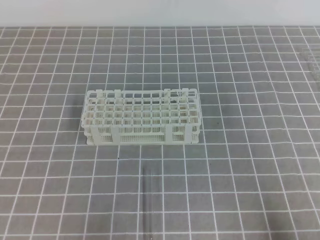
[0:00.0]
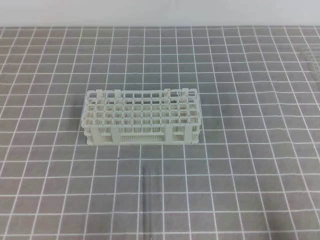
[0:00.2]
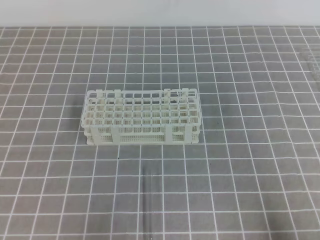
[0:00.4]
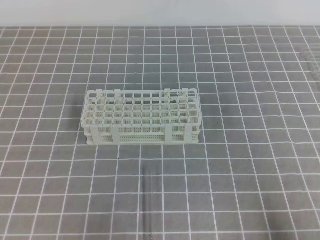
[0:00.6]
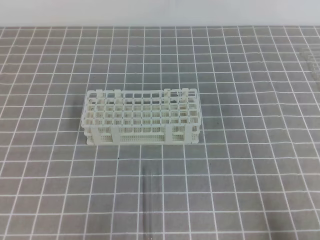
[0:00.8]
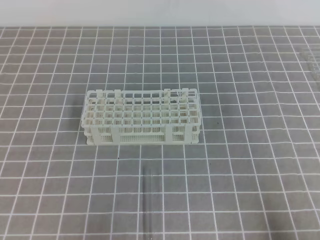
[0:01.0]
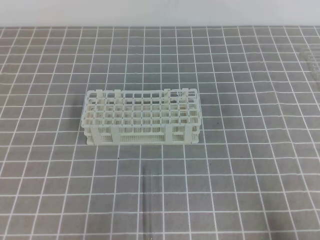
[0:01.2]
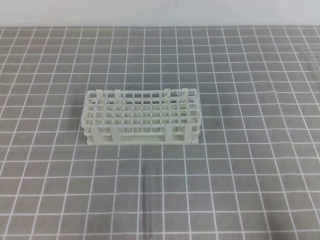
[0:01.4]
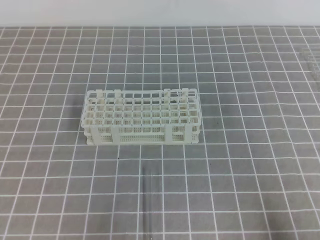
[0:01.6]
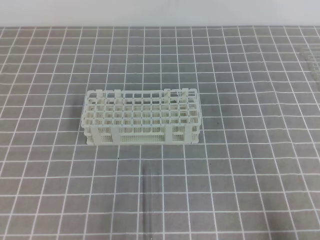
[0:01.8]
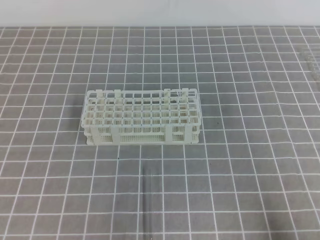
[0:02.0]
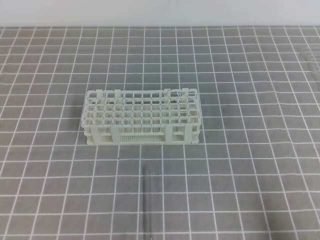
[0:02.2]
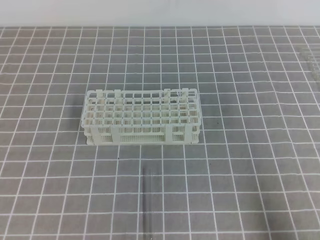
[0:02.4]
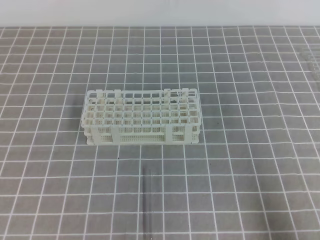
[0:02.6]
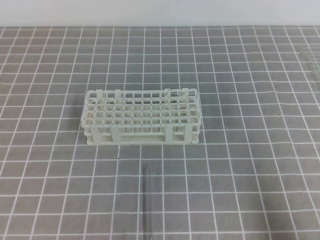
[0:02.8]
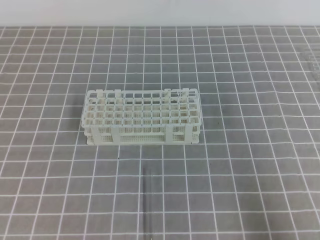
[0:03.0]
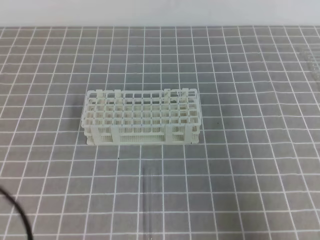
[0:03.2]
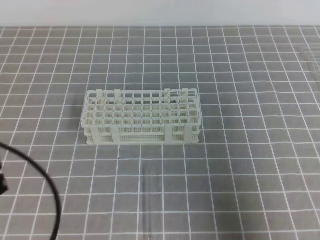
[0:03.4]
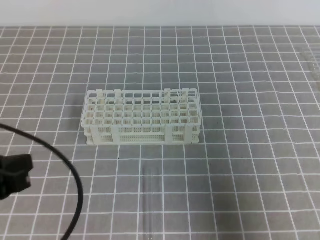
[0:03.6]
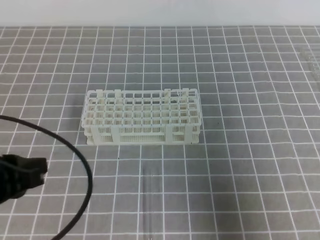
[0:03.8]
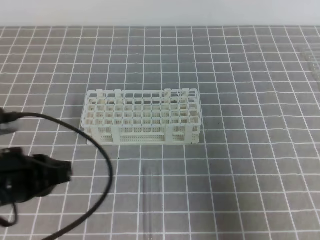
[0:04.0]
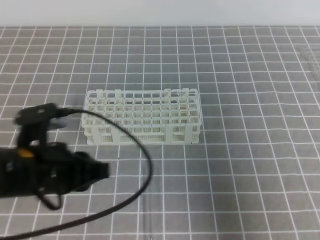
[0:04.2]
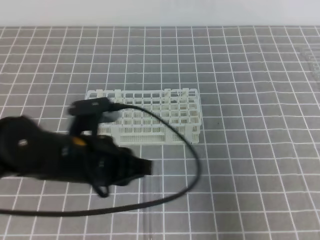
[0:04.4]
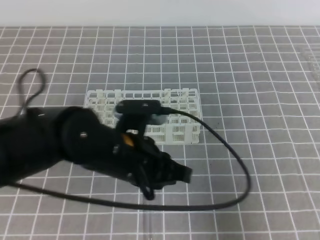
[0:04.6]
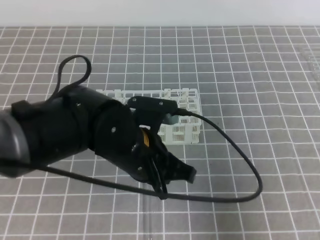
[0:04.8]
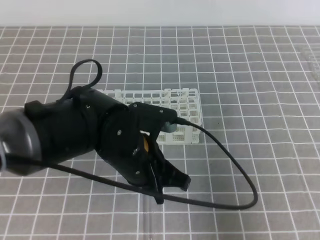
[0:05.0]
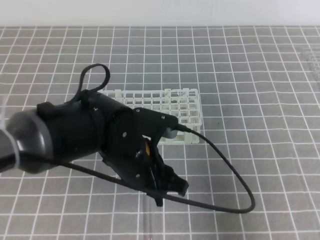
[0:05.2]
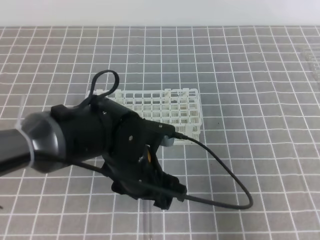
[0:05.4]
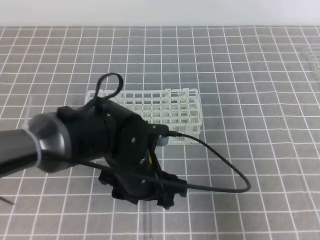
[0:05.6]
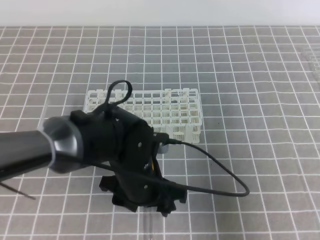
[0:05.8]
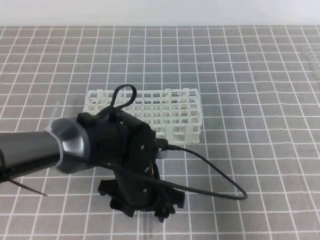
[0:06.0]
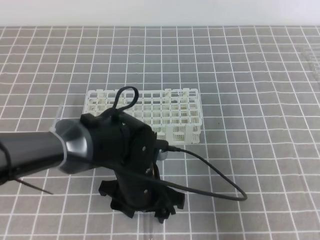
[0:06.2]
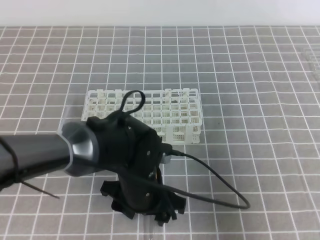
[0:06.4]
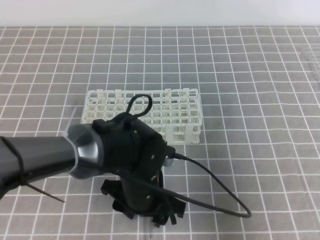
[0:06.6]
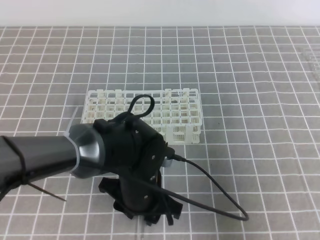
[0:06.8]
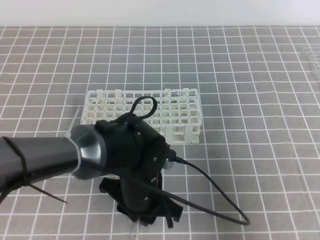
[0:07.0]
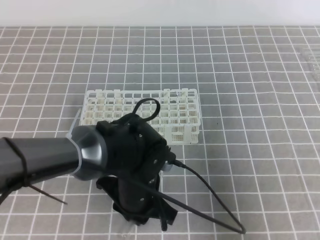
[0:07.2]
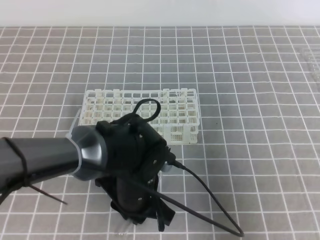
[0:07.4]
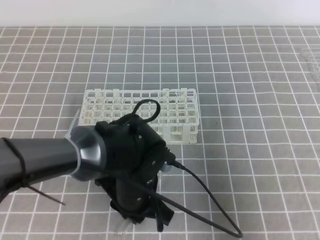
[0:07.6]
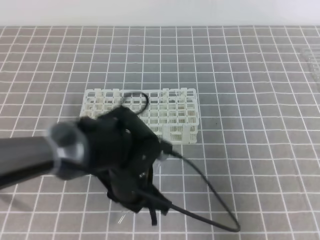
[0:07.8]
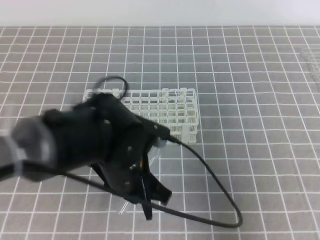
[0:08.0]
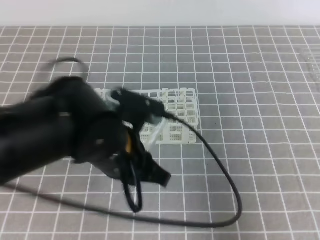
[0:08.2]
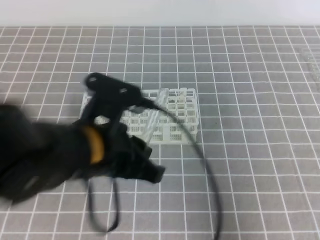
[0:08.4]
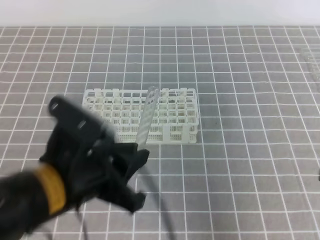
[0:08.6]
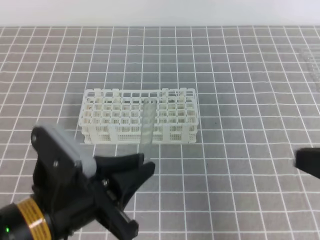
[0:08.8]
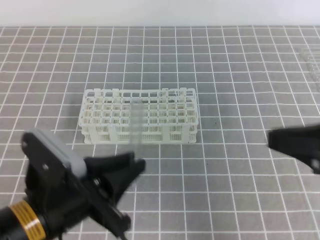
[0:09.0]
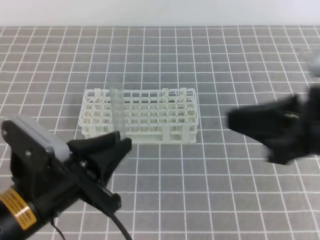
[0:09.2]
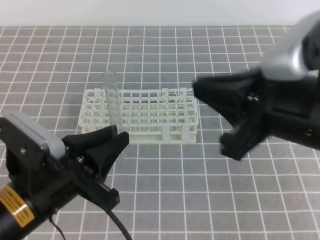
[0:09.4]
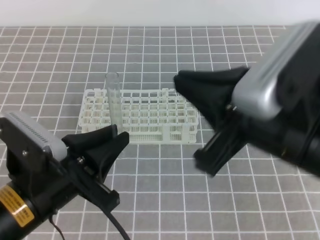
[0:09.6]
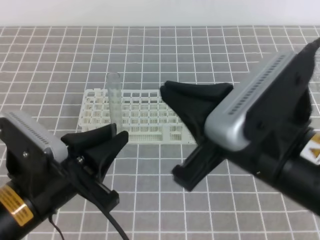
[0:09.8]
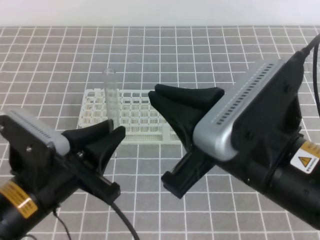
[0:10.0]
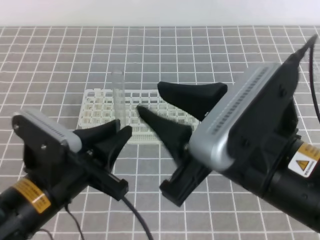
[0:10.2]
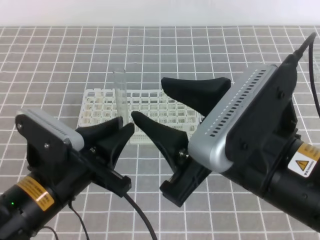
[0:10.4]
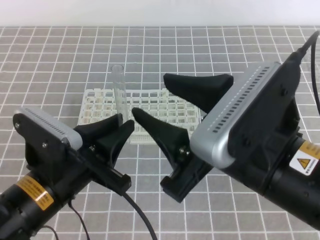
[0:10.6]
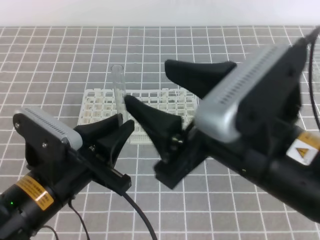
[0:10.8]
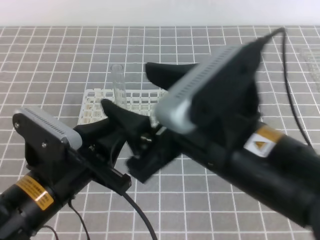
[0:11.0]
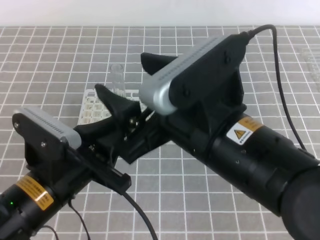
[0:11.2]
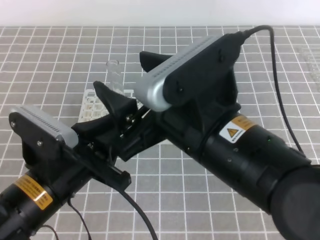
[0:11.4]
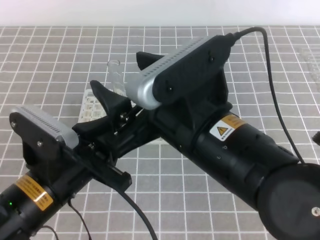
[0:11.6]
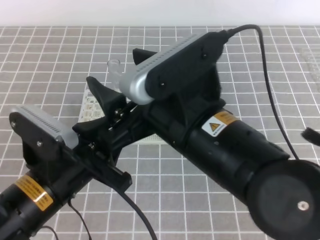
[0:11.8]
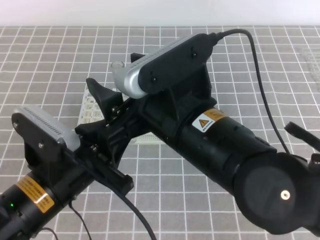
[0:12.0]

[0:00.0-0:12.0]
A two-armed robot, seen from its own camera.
0:00.0 to 0:01.6: The two grippers keep their place.
0:03.0 to 0:04.4: The right gripper heads upward and forward, covering about 10 cm; the left gripper heads to the right and forward, covering some 20 cm.
0:04.4 to 0:06.0: The left gripper moves to the right and downward, roughly 10 cm, and opens its fingers.
0:06.0 to 0:07.6: The left gripper closes up.
0:07.6 to 0:09.0: The right gripper is displaced to the left and upward by about 10 cm; the left gripper goes approximately 15 cm to the left, upward and backward.
0:09.0 to 0:10.4: The right gripper shifts approximately 15 cm to the left, and opens up.
0:10.4 to 0:12.0: The right gripper goes approximately 5 cm to the left.

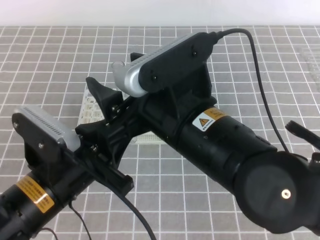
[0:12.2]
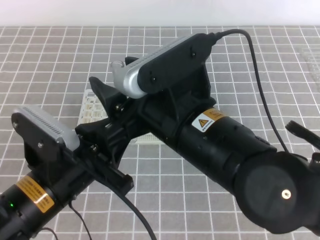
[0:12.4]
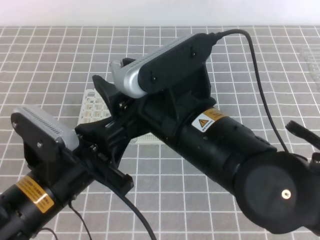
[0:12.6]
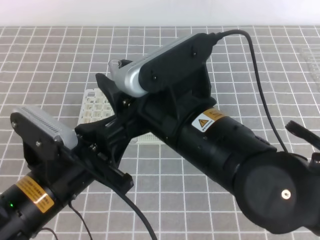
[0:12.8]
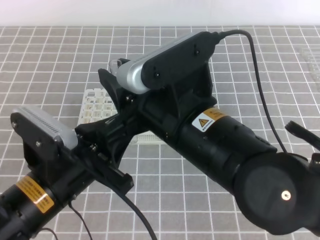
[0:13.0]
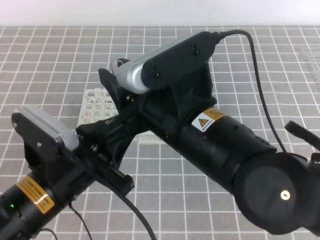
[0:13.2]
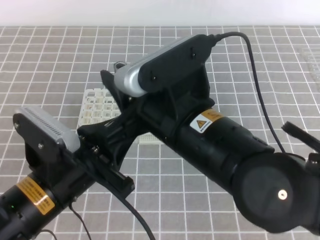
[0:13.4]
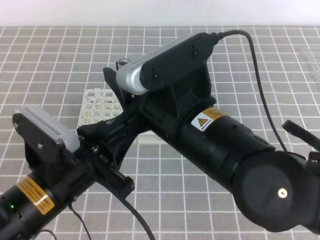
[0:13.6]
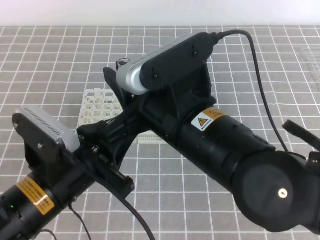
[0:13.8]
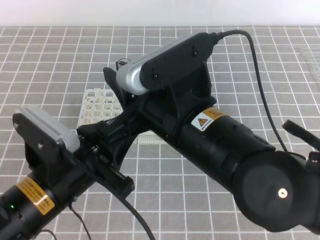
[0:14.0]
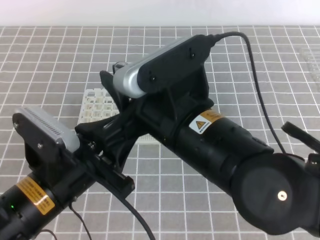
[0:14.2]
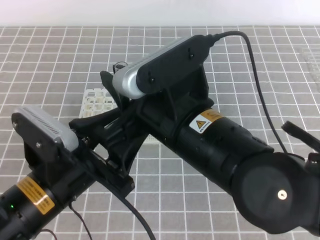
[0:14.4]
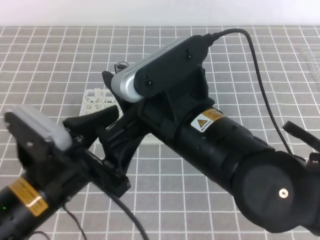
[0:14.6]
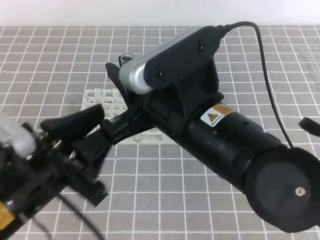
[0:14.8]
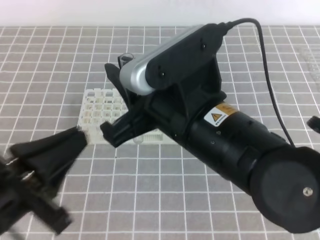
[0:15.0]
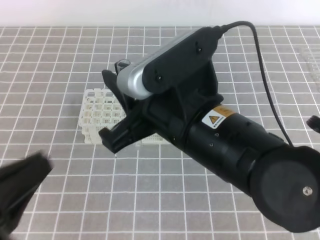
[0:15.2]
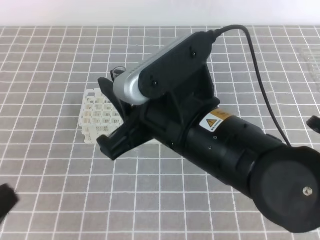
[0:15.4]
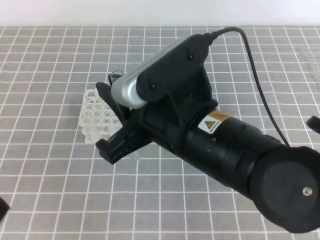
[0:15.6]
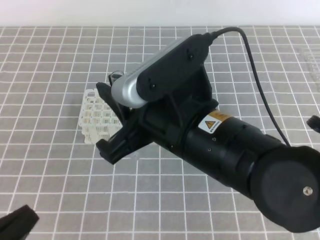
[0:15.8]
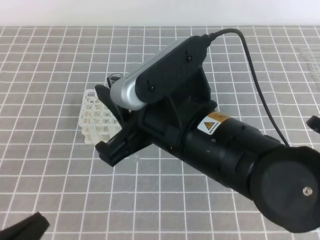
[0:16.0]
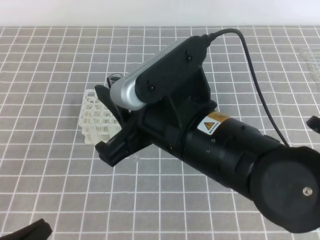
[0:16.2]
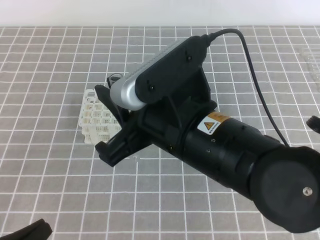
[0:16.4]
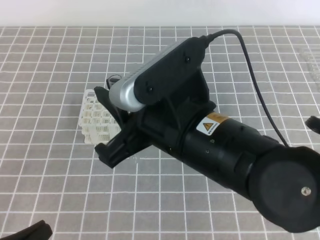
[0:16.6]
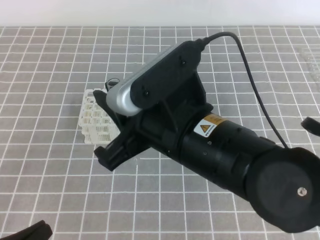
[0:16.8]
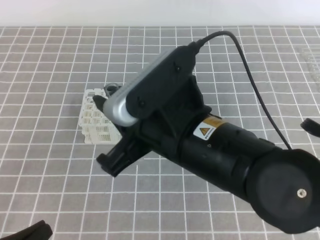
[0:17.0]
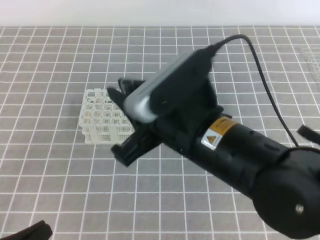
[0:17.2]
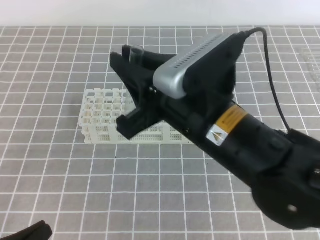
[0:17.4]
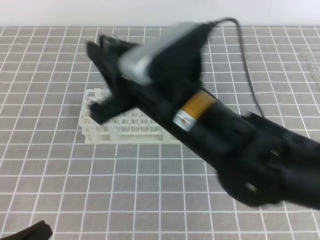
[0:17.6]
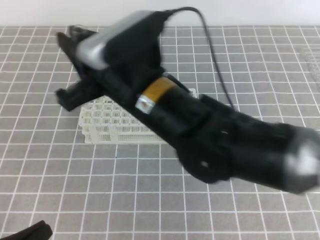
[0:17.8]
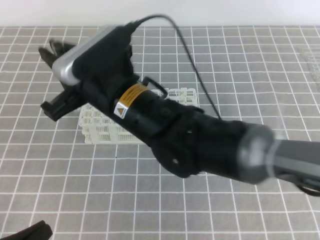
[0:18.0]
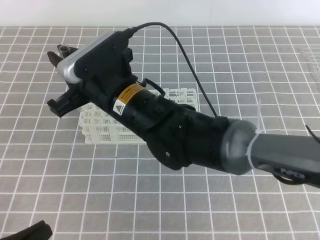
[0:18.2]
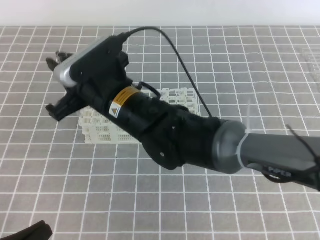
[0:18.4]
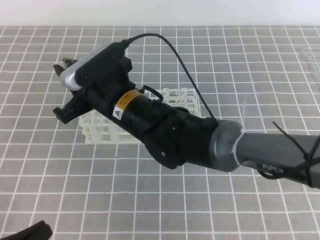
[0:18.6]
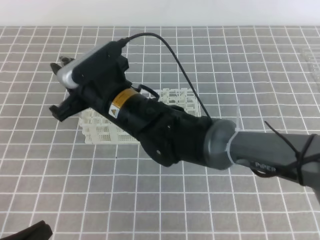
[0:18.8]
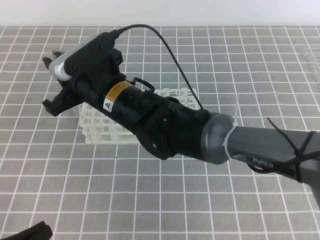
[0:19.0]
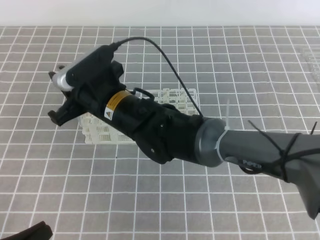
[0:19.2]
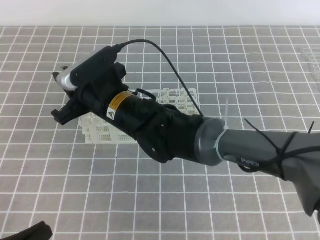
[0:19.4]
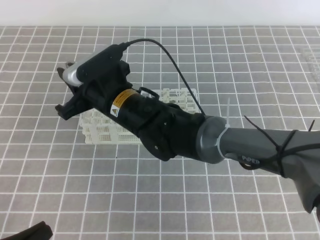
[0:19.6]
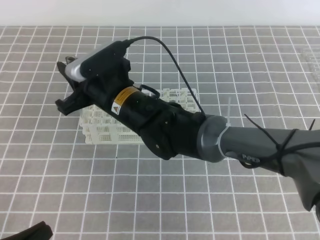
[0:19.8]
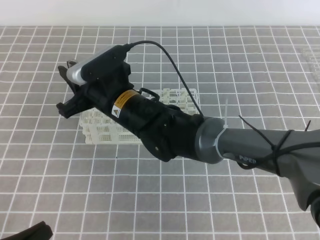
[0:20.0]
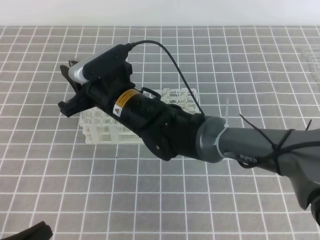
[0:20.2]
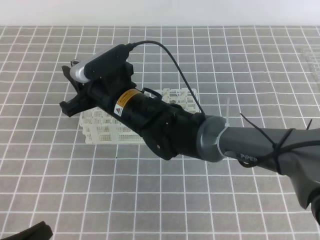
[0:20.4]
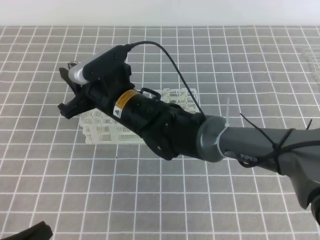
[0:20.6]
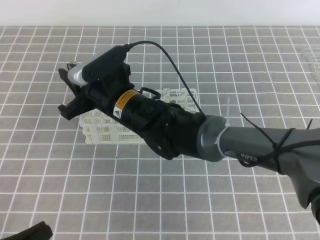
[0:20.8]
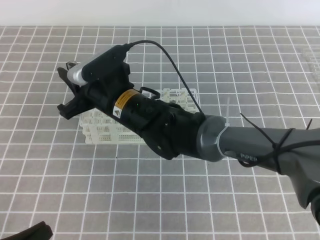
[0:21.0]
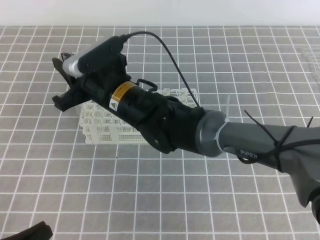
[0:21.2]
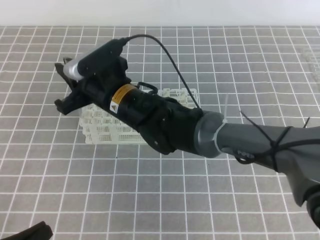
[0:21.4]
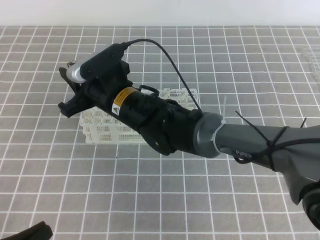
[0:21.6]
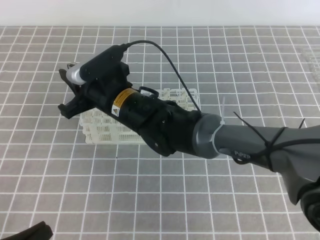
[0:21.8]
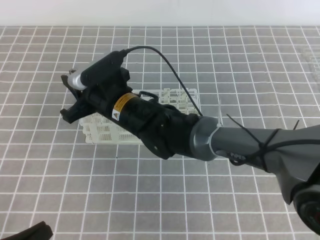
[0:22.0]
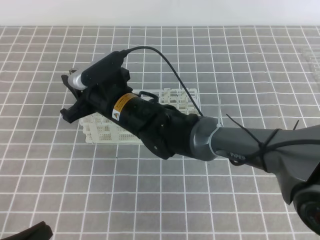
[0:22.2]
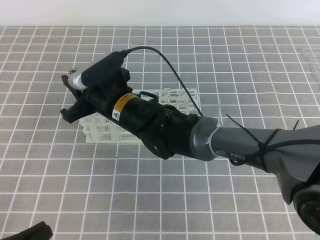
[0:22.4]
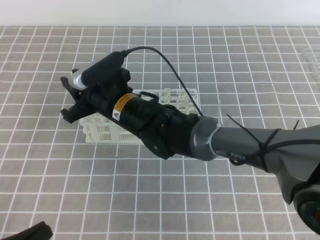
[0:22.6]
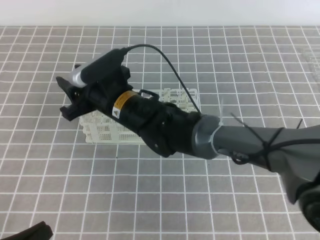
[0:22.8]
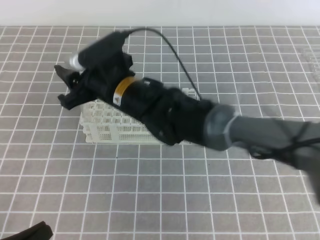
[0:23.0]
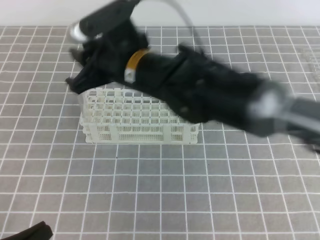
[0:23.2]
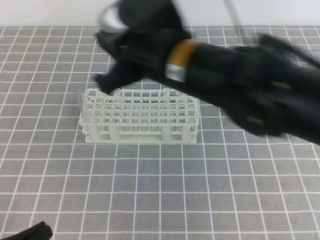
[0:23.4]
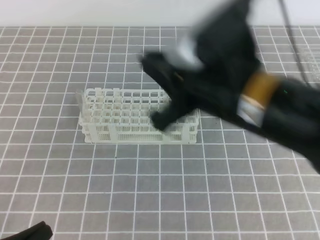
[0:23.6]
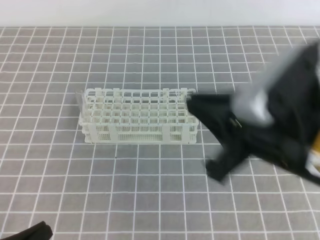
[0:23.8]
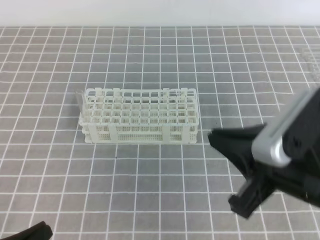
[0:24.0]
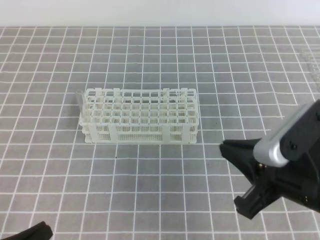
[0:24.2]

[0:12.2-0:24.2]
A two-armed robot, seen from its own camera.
0:12.2 to 0:13.8: The right gripper closes its fingers.
0:13.8 to 0:15.2: The left gripper moves backward and to the left, some 10 cm, and opens, then closes once more.
0:15.2 to 0:16.6: The left gripper heads downward, covering about 10 cm.
0:16.6 to 0:18.2: The right gripper heads forward and to the left, covering roughly 15 cm.
0:18.2 to 0:19.8: The right gripper shifts about 5 cm downward.
0:19.8 to 0:21.2: The two grippers keep their place.
0:21.2 to 0:22.6: The grippers make only small movements.
0:22.6 to 0:24.2: The right gripper goes about 30 cm to the right and backward, and closes.
